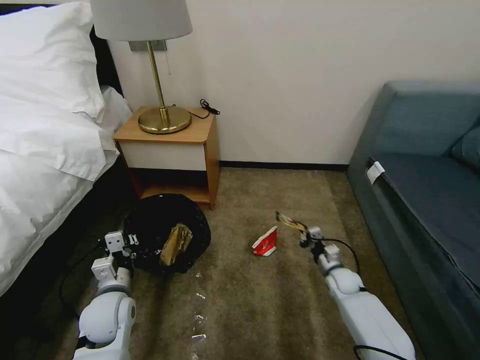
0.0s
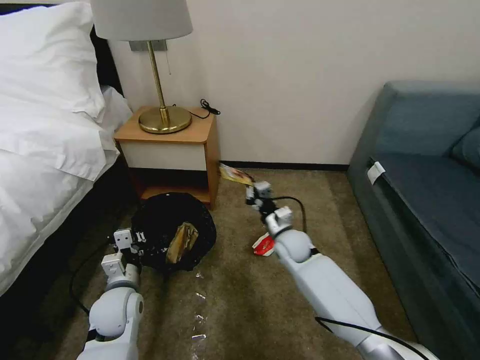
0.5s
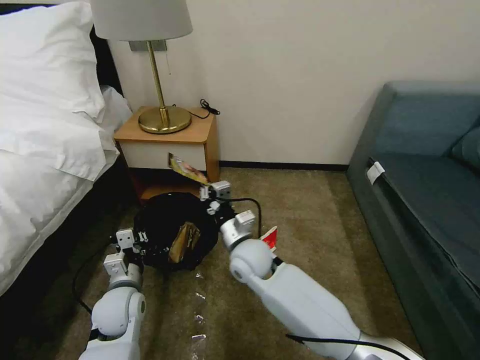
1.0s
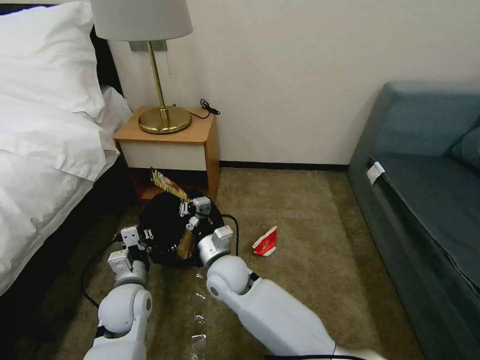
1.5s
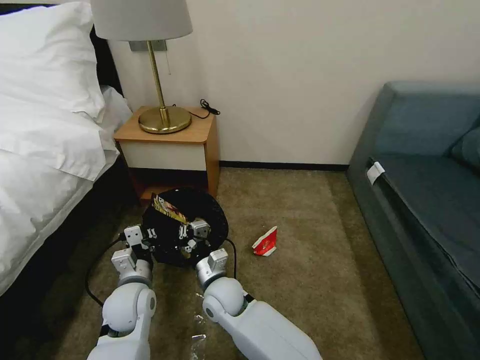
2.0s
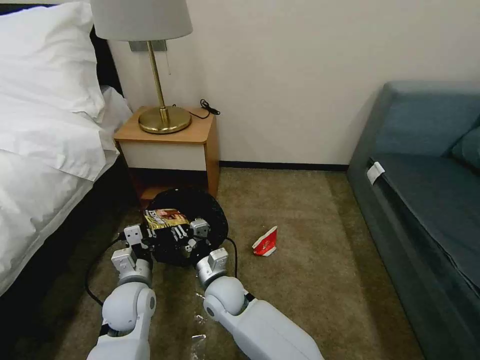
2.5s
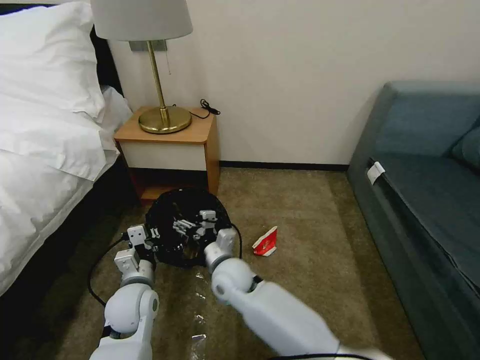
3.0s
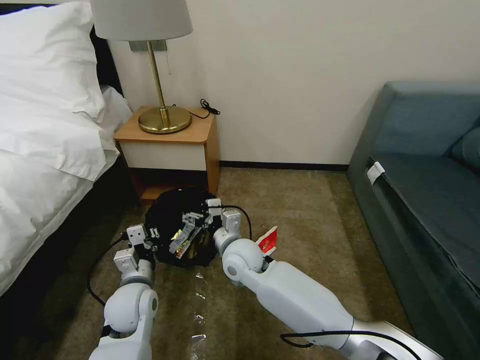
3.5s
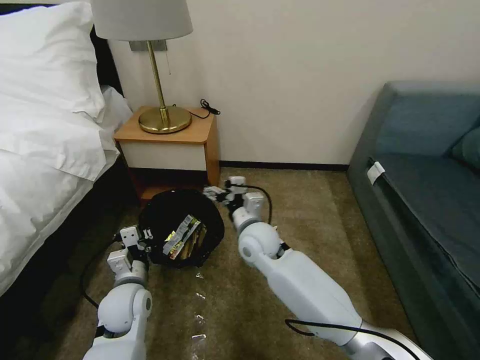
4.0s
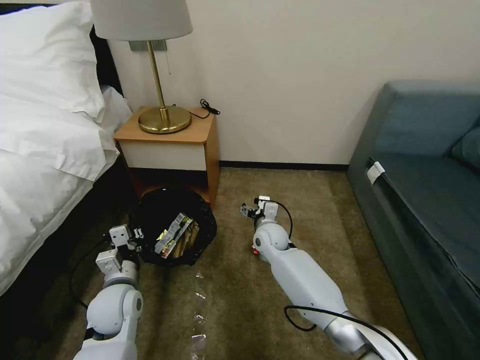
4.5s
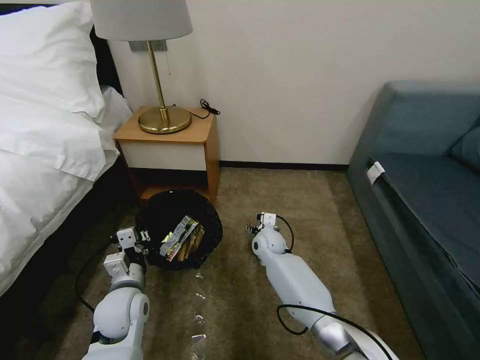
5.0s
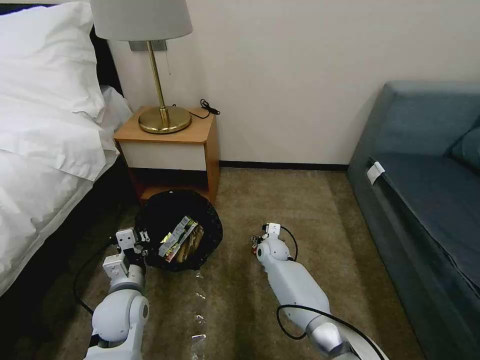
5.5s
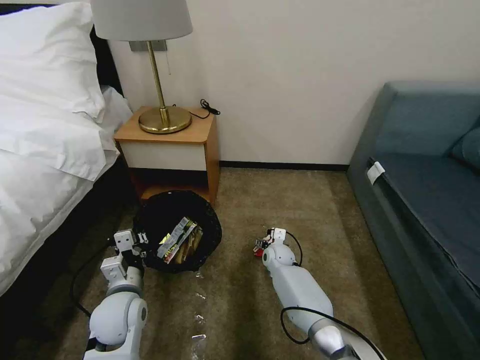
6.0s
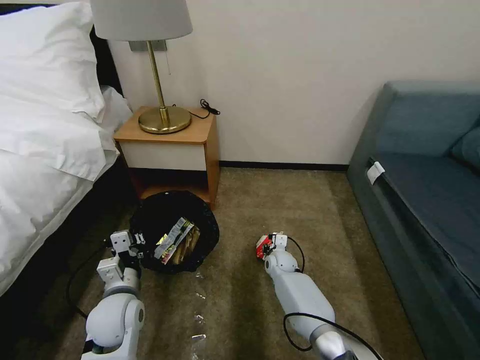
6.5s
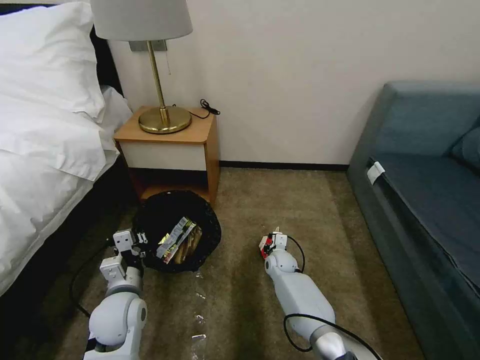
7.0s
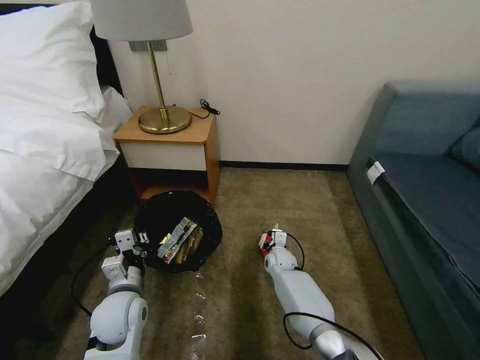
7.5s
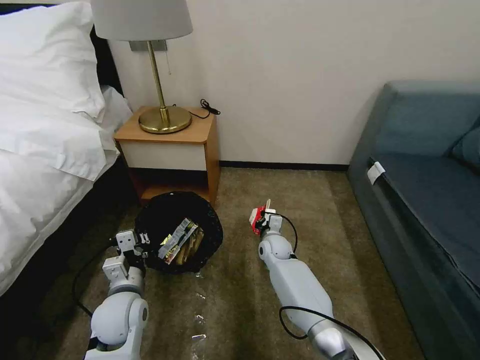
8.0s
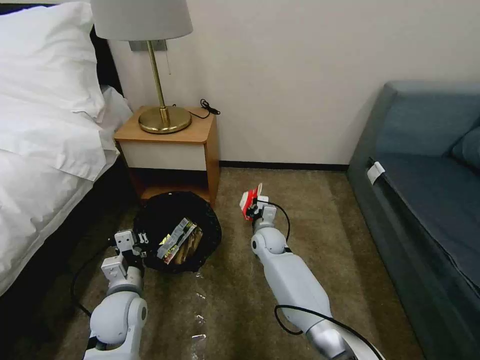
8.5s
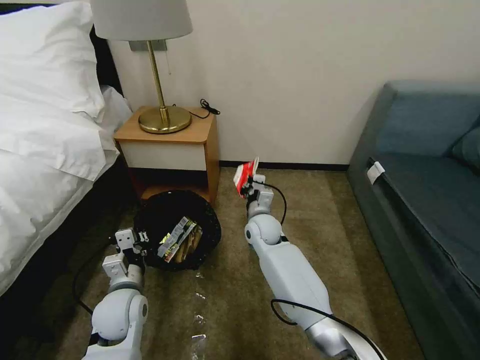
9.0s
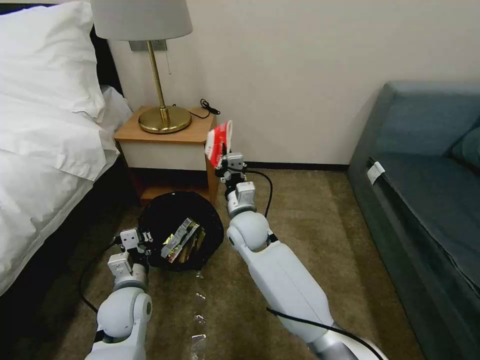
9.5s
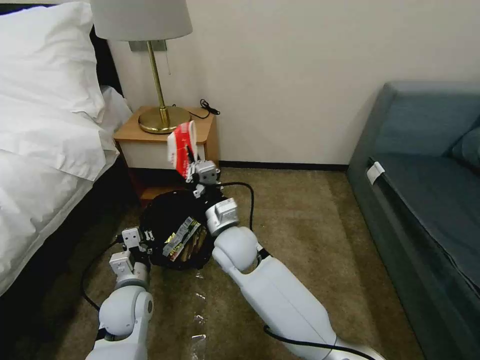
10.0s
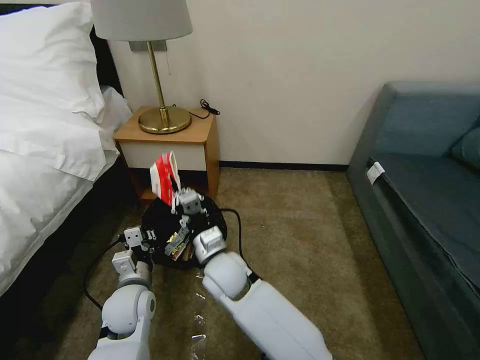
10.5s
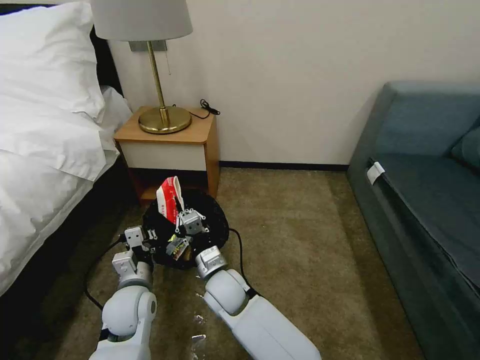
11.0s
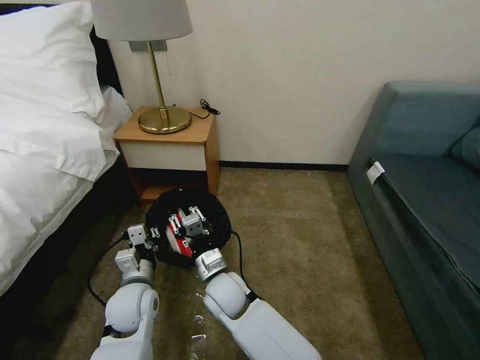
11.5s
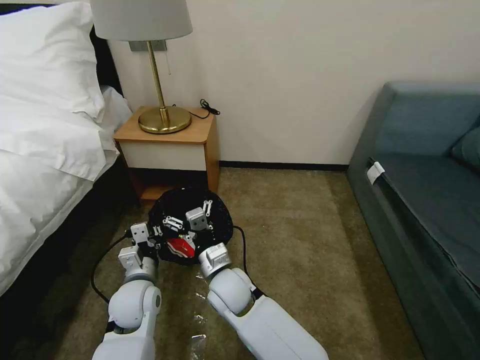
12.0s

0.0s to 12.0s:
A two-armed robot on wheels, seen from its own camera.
Task of the whole recording: Pick up the trash bin, then pick up the garbage on the floor and place it into the trash bin.
0.0s to 2.0s: The right gripper travels to the left by roughly 35 cm.
2.0s to 4.0s: The right gripper moves upward, forward and to the right, roughly 15 cm, and opens up.
4.0s to 6.0s: The right gripper travels downward by some 20 cm.
6.0s to 8.0s: The right gripper closes.
8.0s to 10.0s: The right gripper goes some 25 cm upward, to the left and backward.
10.0s to 12.0s: The right gripper shifts approximately 10 cm downward and backward, and opens up.

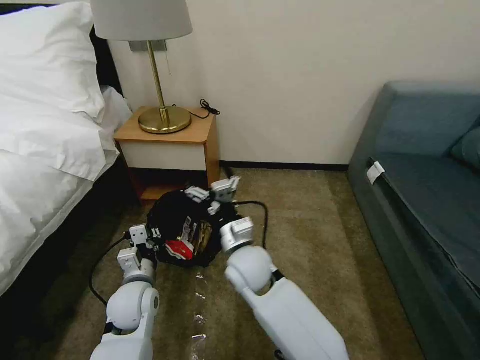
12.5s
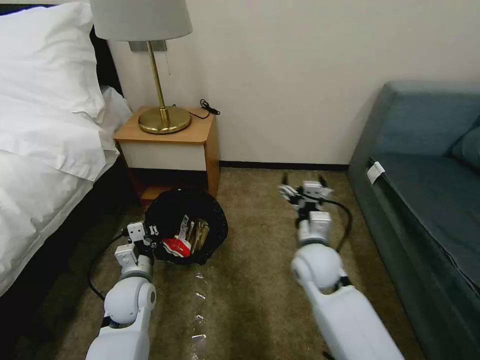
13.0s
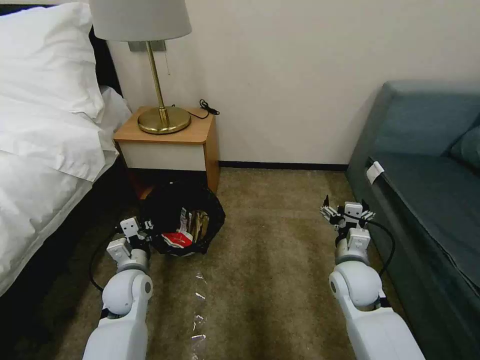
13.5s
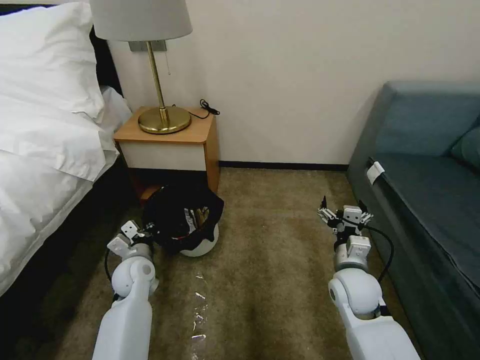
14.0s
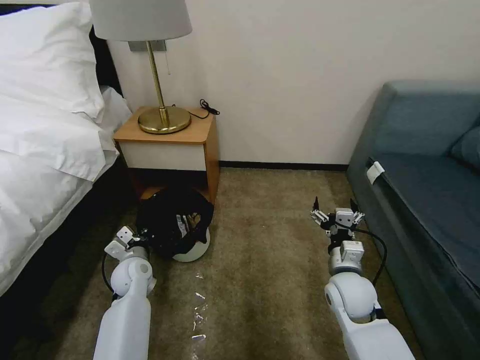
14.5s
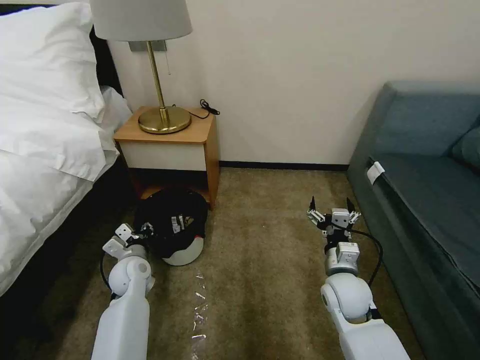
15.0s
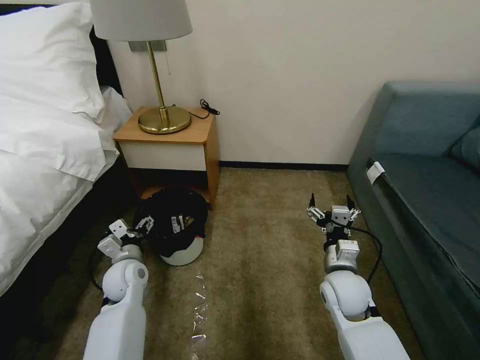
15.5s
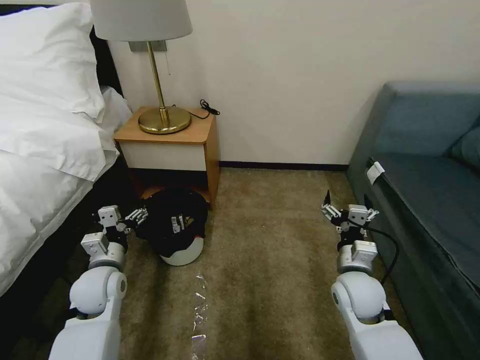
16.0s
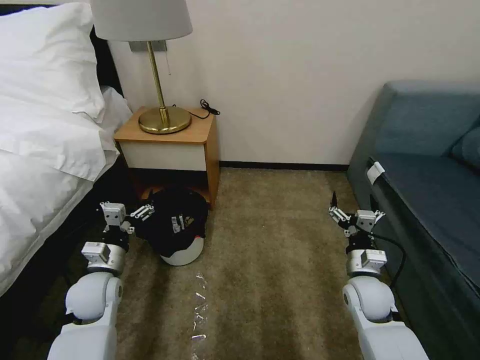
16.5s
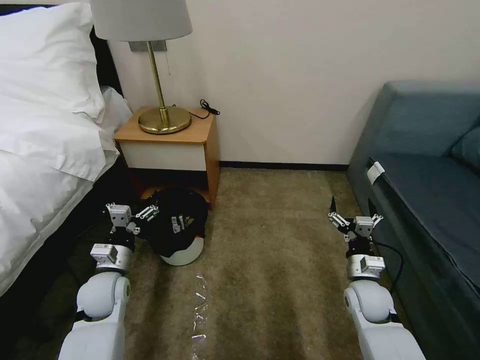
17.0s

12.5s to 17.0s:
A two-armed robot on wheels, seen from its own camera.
Task of the whole recording: Pick up the trash bin, then pick up the garbage on the floor and place it into the trash bin.
12.5s to 14.5s: The left gripper goes roughly 10 cm forward. Meanwhile the right gripper is displaced to the right by some 20 cm.
14.5s to 17.0s: The right gripper travels to the right and downward by approximately 10 cm; the left gripper moves backward, about 5 cm, and opens its fingers.

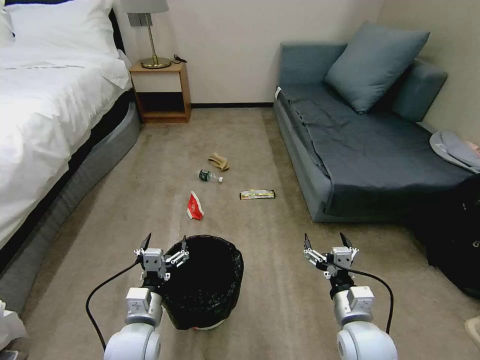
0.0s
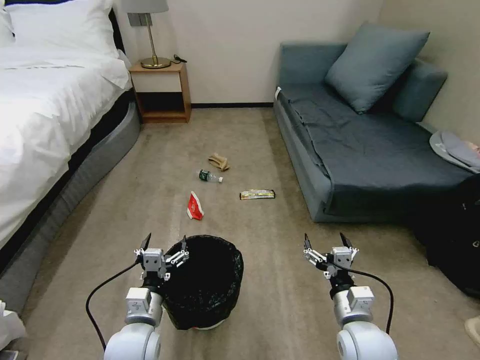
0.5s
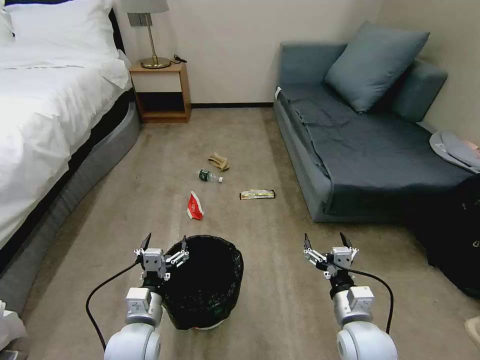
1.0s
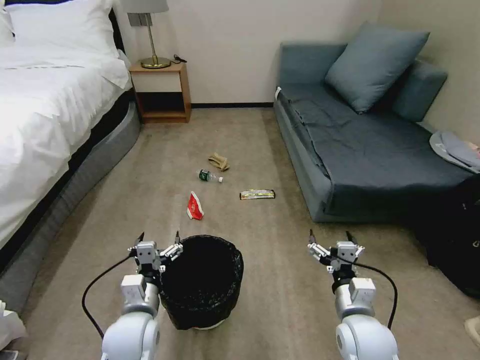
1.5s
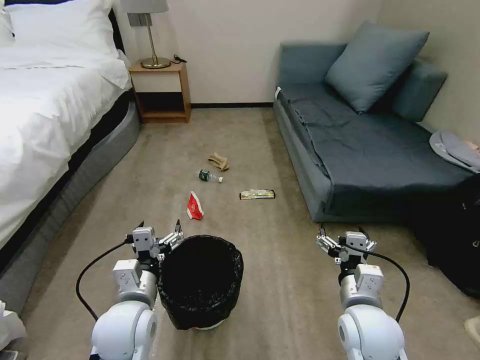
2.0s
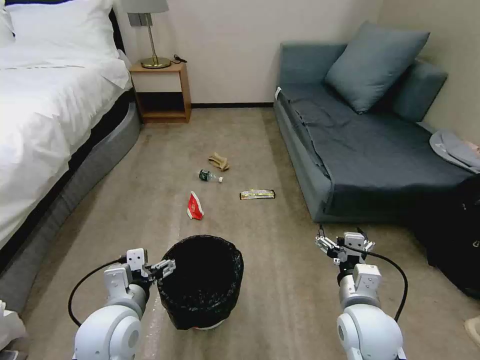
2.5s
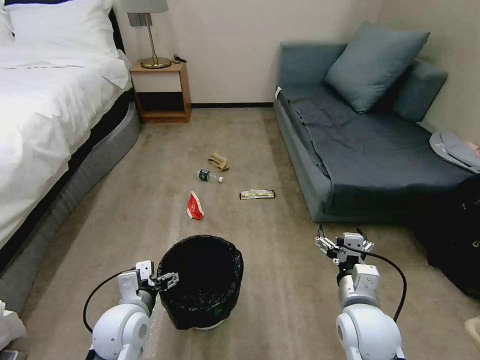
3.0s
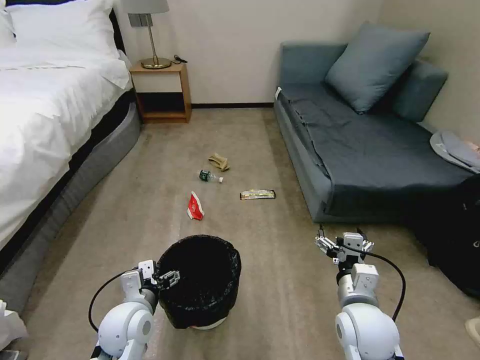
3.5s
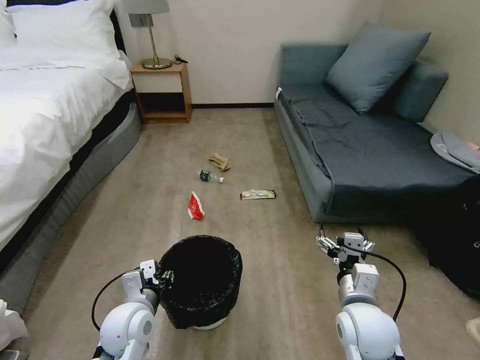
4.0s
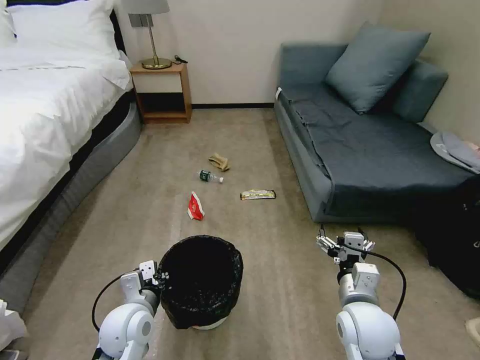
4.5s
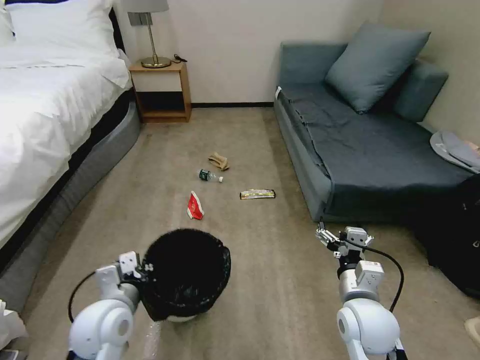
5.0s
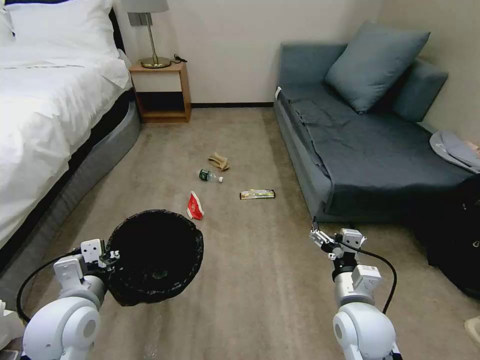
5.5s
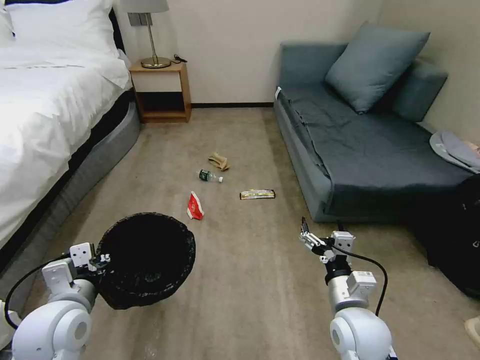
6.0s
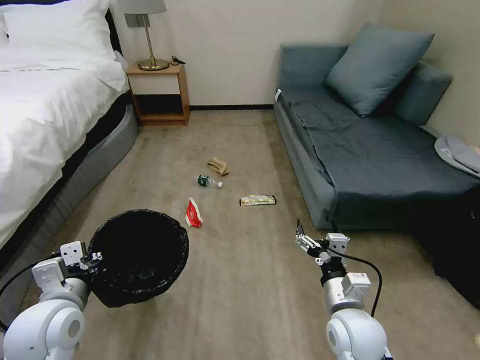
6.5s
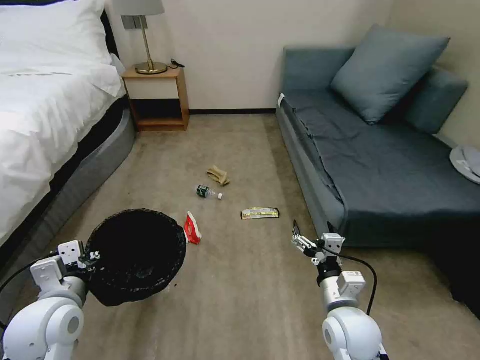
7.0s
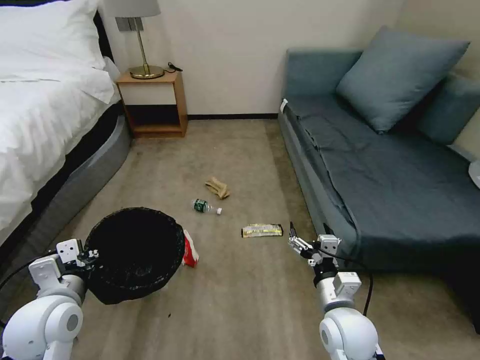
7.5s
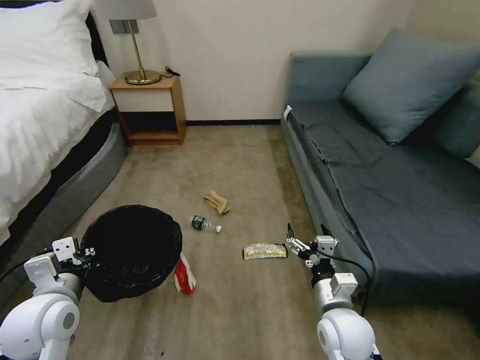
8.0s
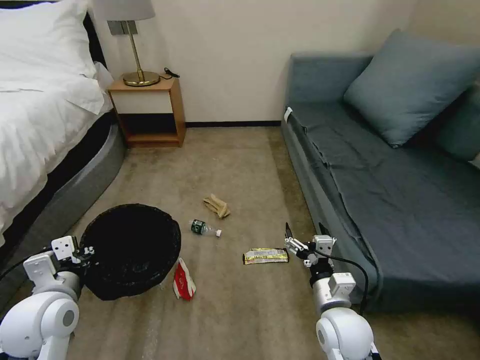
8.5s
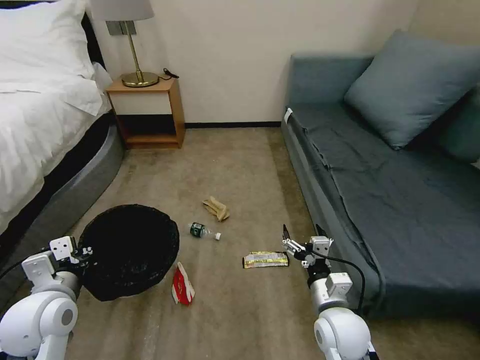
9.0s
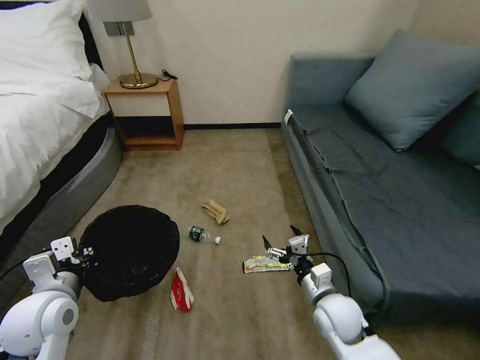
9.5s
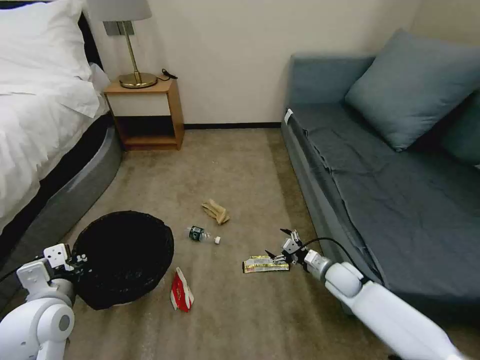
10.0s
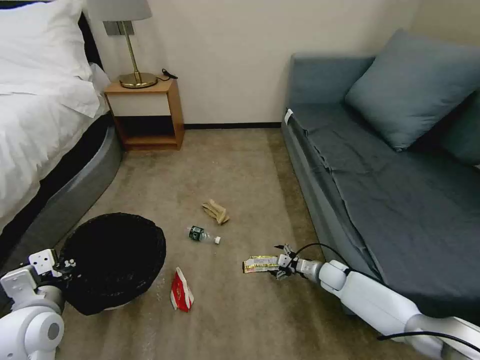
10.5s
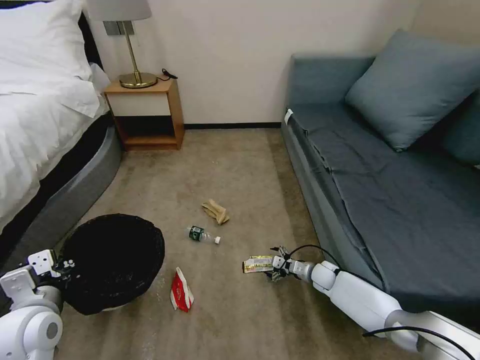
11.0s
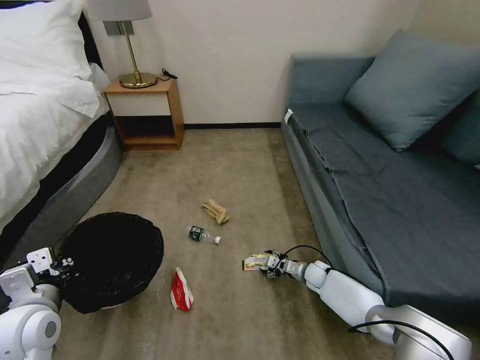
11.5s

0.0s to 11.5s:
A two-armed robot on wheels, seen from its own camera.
Task of the whole recording: Pick up the trash bin, then pick up the garbage on the floor and place it into the trash bin.
2.0s to 4.0s: The left gripper travels downward by about 5 cm, and closes its fingers.
4.0s to 6.0s: The left gripper is displaced upward and to the left by approximately 10 cm, and closes up.
7.5s to 9.5s: The right gripper moves approximately 5 cm.
9.5s to 11.5s: The right gripper goes approximately 25 cm downward and forward.
